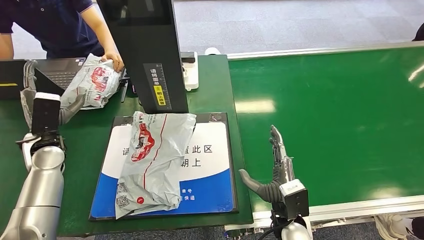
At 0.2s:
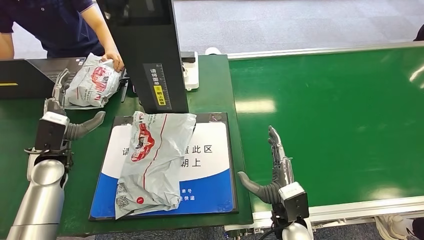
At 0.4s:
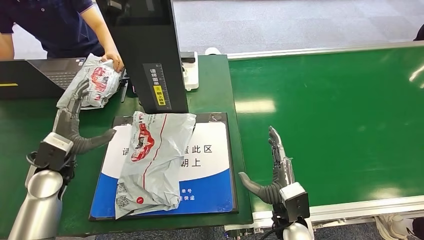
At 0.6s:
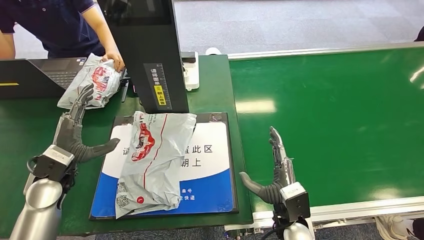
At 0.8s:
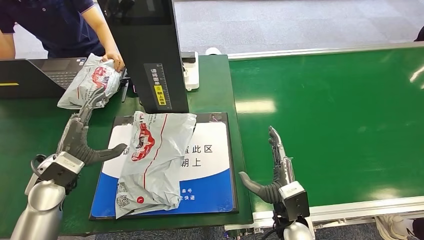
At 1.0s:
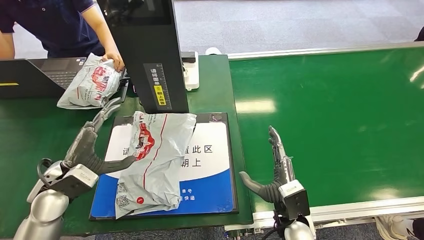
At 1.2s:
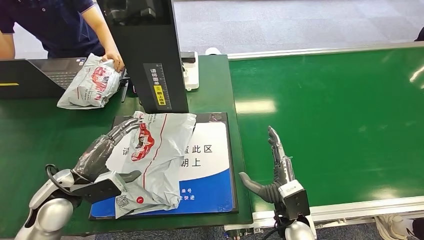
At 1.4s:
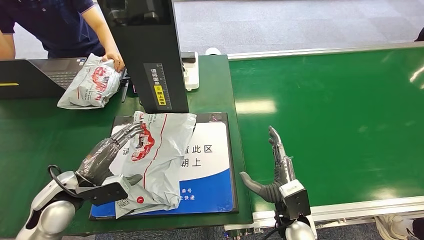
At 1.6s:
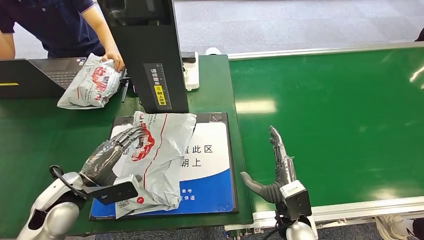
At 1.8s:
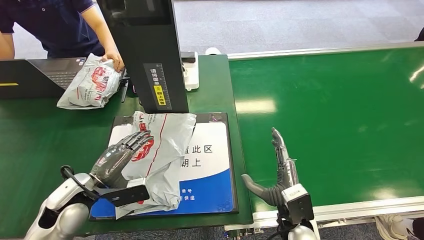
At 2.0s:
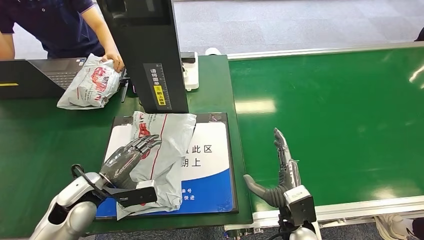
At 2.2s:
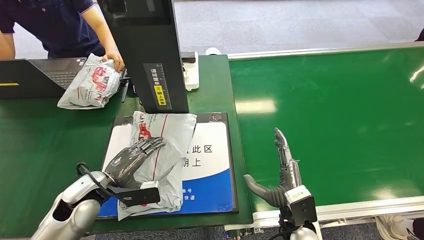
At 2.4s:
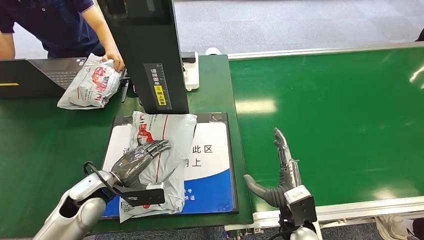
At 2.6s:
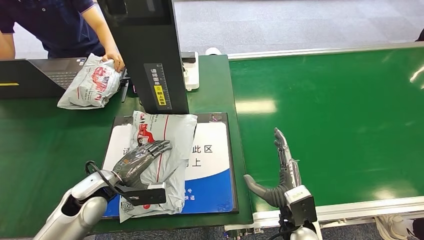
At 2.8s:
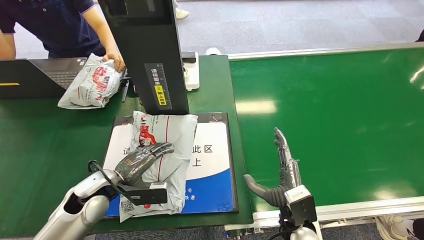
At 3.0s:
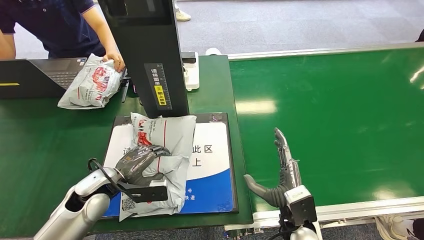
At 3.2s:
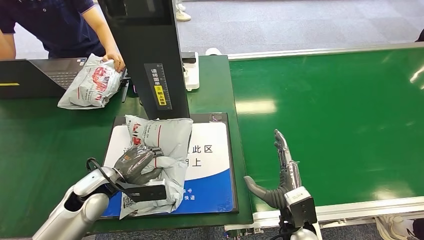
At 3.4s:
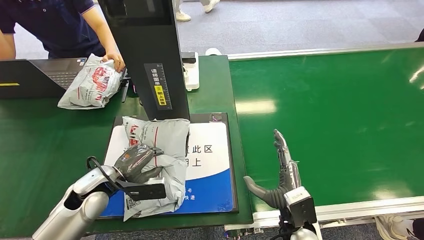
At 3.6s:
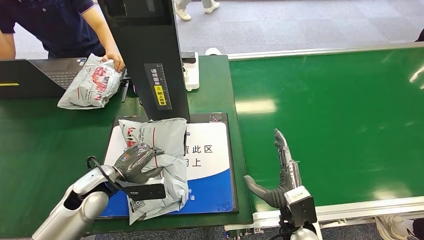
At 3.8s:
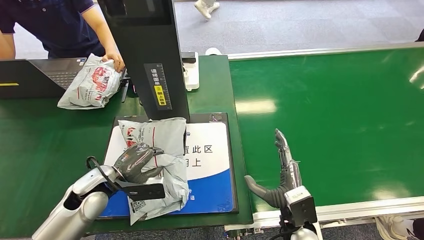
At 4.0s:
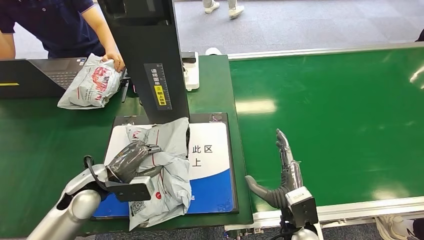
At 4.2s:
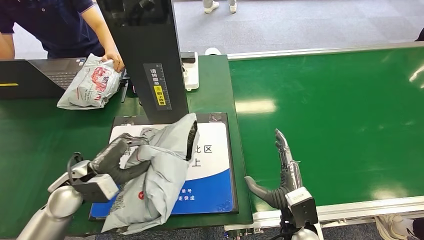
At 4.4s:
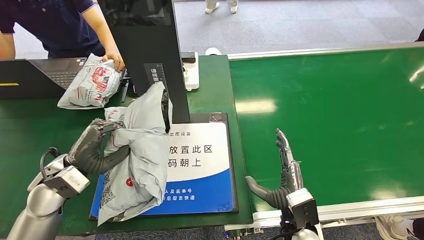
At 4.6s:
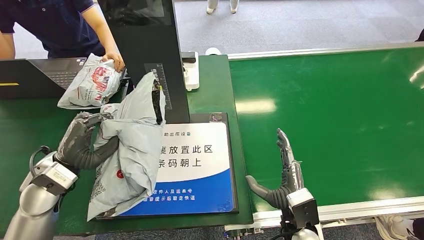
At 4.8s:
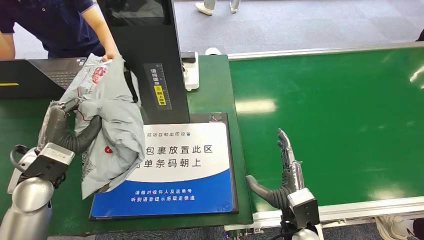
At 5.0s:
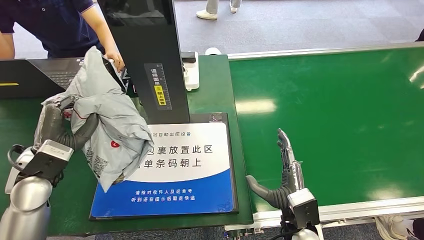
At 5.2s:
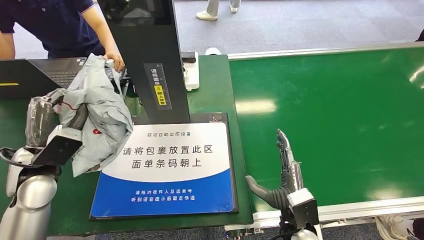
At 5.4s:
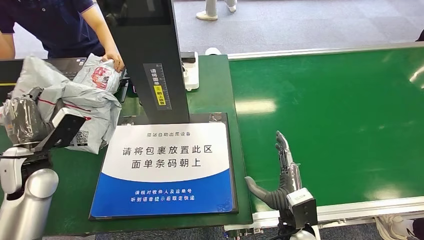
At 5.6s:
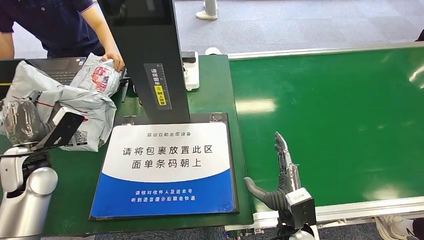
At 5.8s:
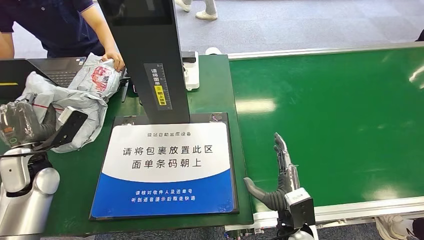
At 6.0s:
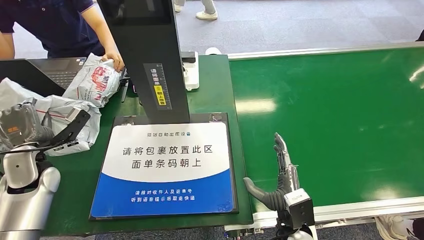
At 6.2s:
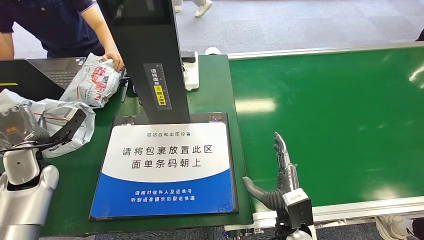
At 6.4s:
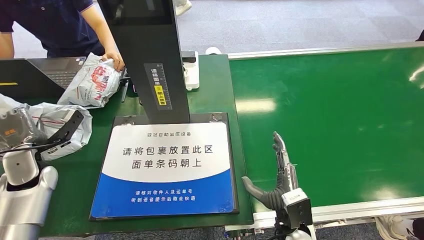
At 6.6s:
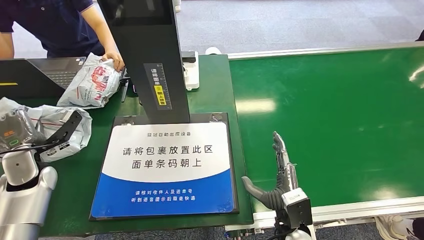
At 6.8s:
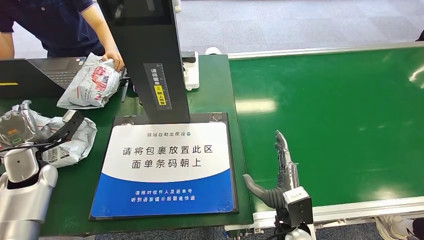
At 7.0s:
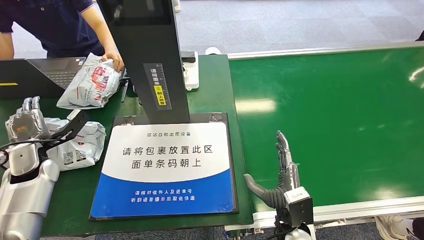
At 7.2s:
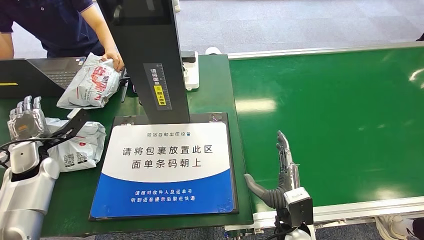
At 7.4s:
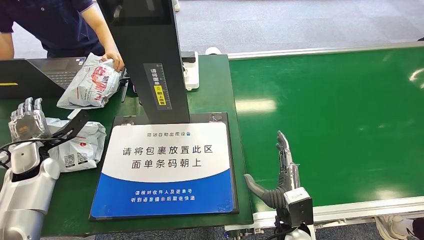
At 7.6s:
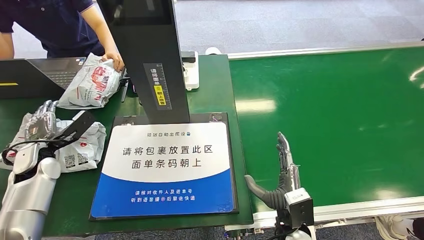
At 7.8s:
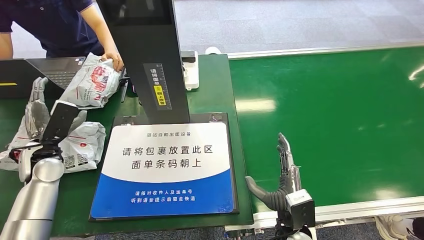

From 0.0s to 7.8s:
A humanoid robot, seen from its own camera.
Task of the whole recording: Weigh the package on the weighing device and place it in the left basket.
Step, from 0.6s to 4.2s: Pick up the package from the inbound machine.
Step, from 4.4s to 7.8s: Place the package into the parcel locker.
From 0.0s to 1.6s: The left hand heads backward and to the right, covering about 15 cm.
From 1.6s to 3.2s: The left hand ends up some 5 cm from where it was.
From 3.2s to 4.6s: The left hand is displaced upward by some 10 cm.
From 4.6s to 6.2s: The left hand travels to the left by about 10 cm.
